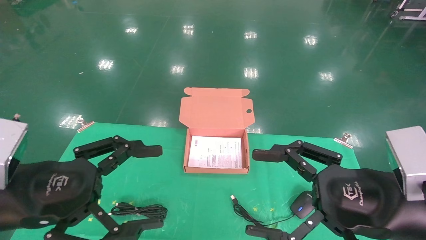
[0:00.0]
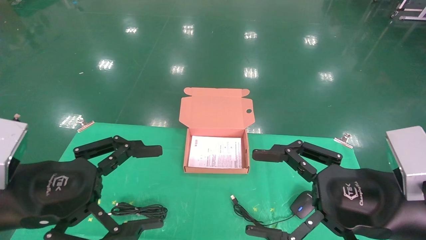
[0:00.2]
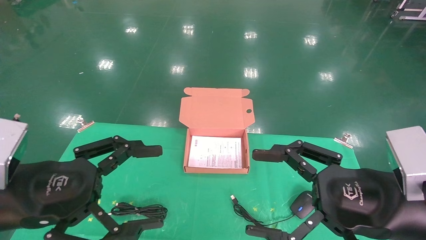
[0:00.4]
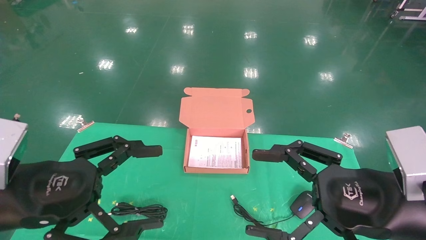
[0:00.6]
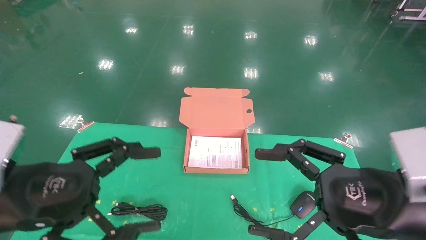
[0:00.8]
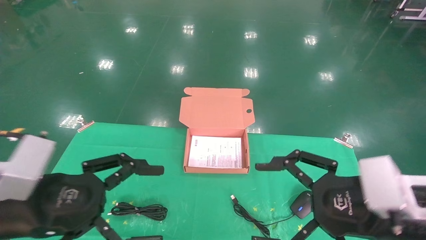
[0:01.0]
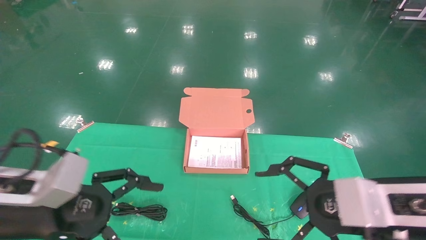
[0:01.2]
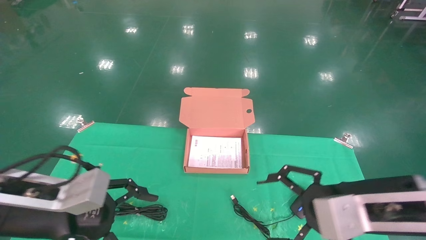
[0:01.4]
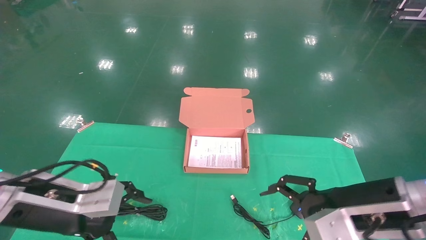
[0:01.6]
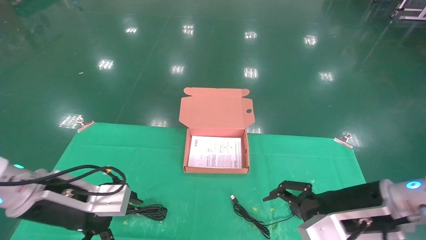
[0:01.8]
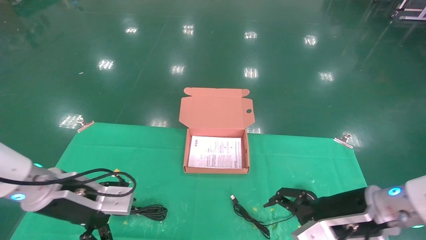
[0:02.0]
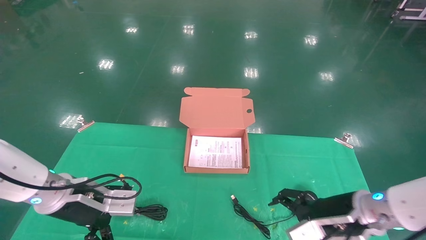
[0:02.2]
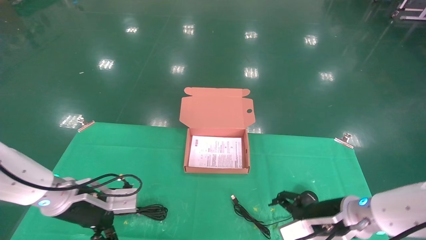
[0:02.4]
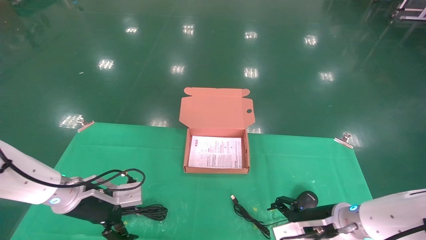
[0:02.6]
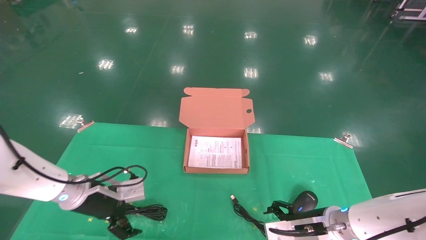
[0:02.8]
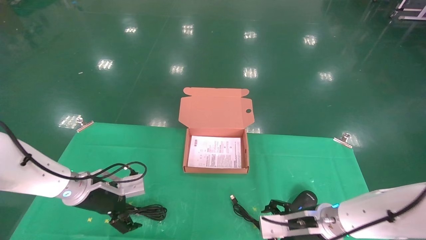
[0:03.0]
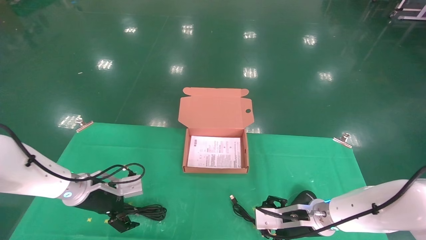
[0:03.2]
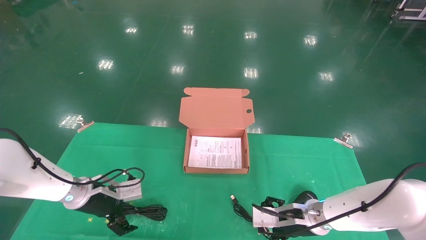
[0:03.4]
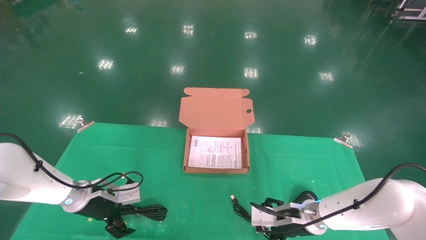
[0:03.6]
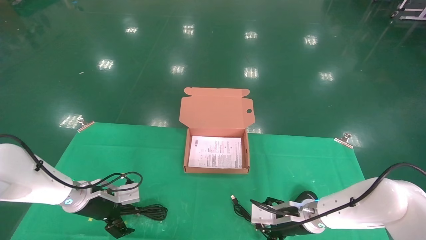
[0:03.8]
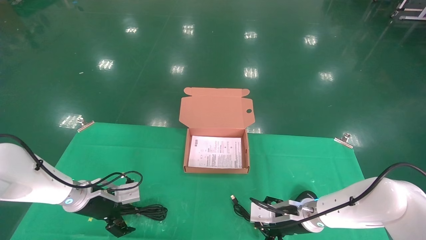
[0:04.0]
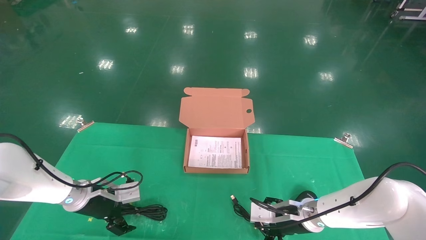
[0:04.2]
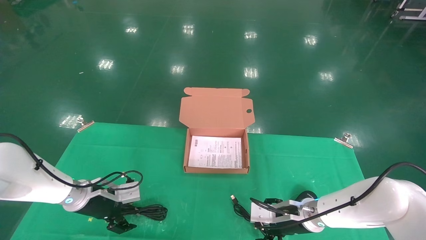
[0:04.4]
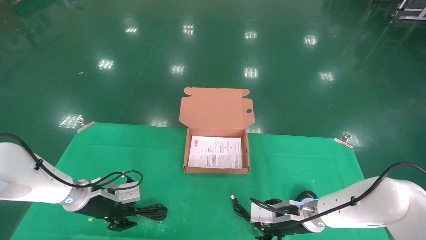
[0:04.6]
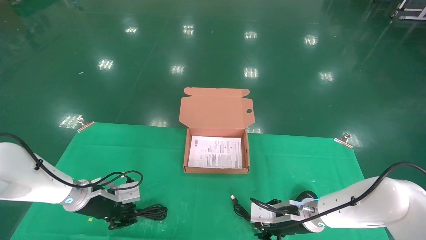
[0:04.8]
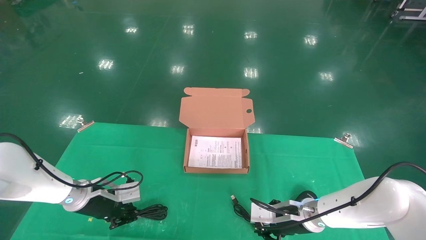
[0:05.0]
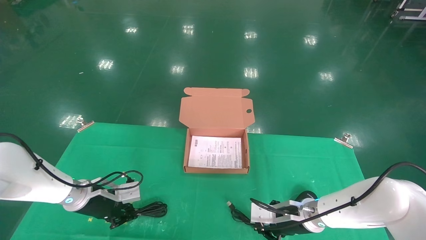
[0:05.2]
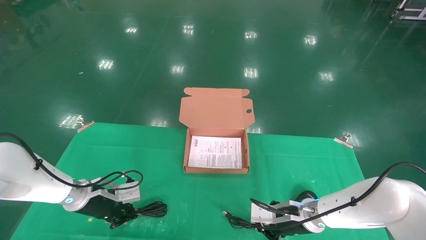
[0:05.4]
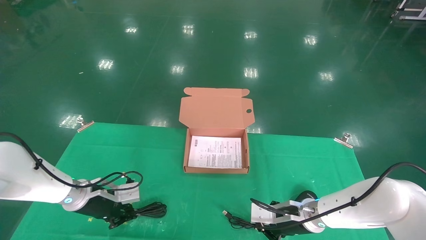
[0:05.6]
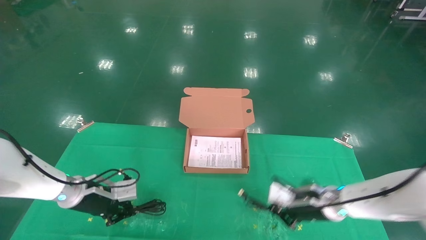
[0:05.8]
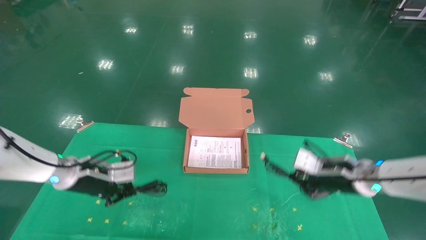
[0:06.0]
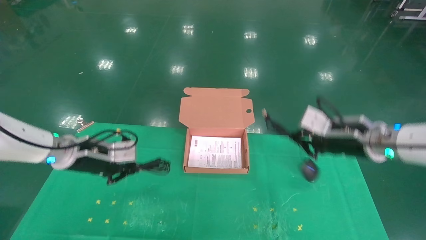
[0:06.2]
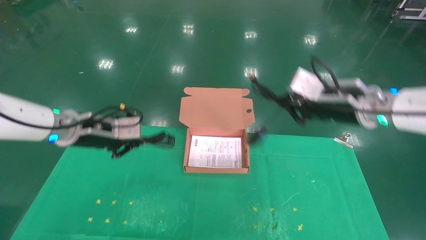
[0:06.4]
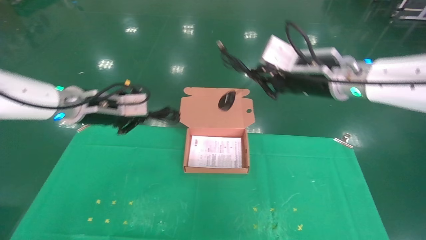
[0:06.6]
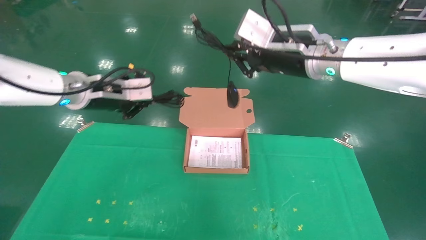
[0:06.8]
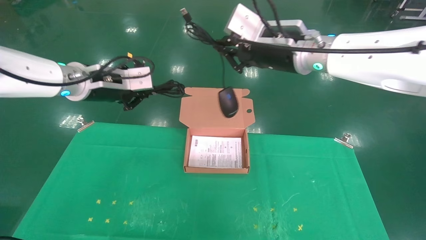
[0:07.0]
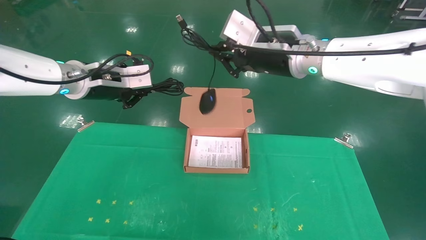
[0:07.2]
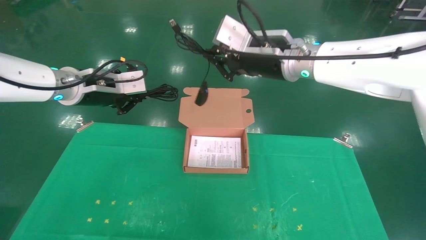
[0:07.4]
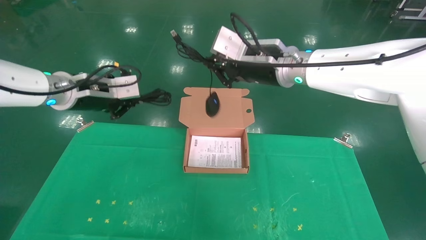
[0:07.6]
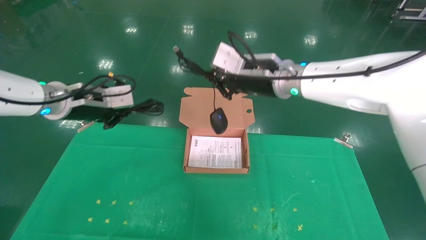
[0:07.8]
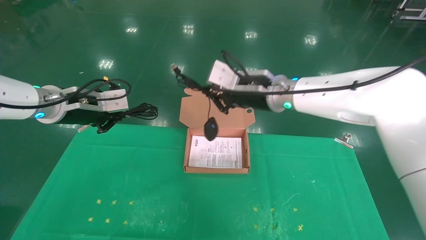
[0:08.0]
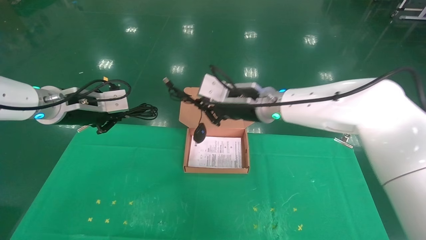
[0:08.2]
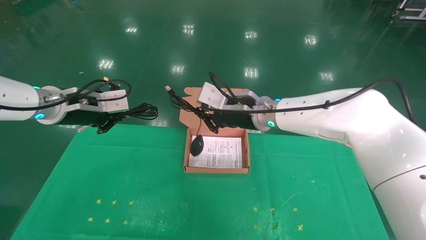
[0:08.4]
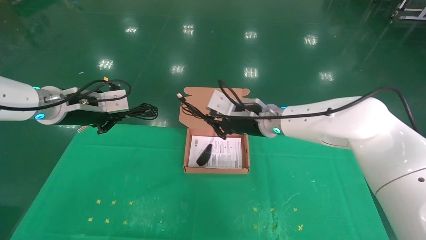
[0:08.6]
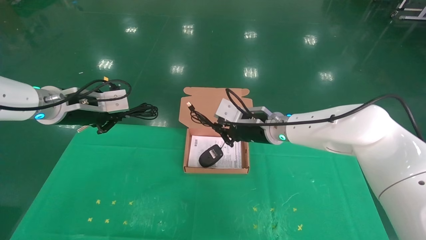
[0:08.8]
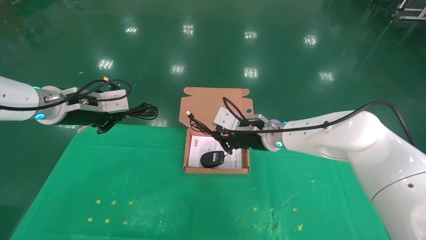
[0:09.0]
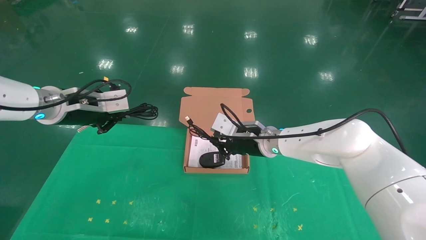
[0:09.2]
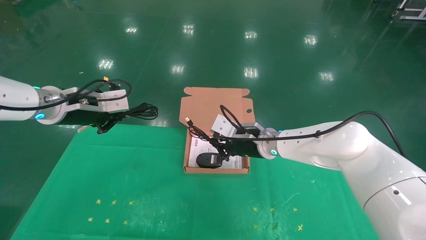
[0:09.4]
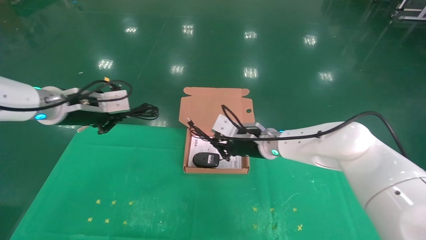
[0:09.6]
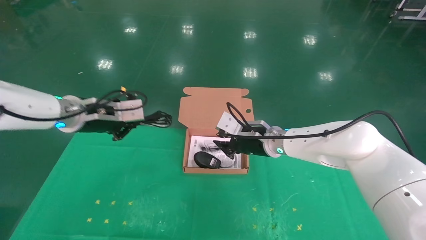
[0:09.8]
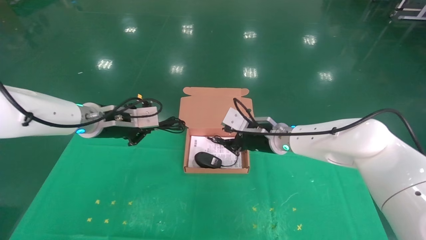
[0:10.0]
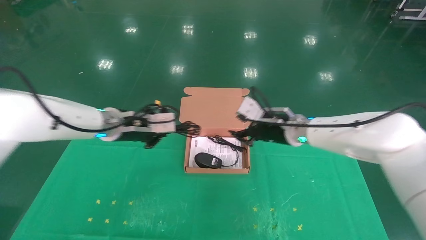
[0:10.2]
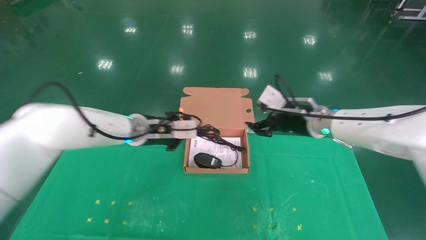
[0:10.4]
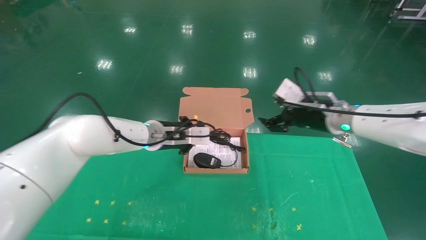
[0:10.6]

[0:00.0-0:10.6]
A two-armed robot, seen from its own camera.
Task of the whole recording: grasp data cable left put into box grasp mouse right put into box.
Step, 0:00.8 to 0:06.4: Grab and pick up both the mouse and power cord from the accessory packaging area at the same time.
0:00.0 to 0:01.6: The two grippers go about 5 cm forward.
0:01.6 to 0:03.0: The right gripper moves downward and forward, roughly 15 cm. Meanwhile the left gripper moves forward and downward, approximately 15 cm.
0:03.0 to 0:04.6: The left gripper closes its fingers. Meanwhile the right gripper shifts by roughly 5 cm.
0:04.6 to 0:06.0: The right gripper shifts some 15 cm upward and to the right, and closes its fingers. The left gripper travels upward by some 10 cm, and closes up.
0:06.0 to 0:07.6: The left gripper travels upward by some 15 cm. The right gripper goes about 25 cm upward and to the left.
0:07.6 to 0:09.0: The right gripper shifts about 15 cm downward.
0:09.0 to 0:10.6: The right gripper travels to the right by approximately 15 cm, and opens its fingers. The left gripper travels to the right, downward and forward by some 20 cm.

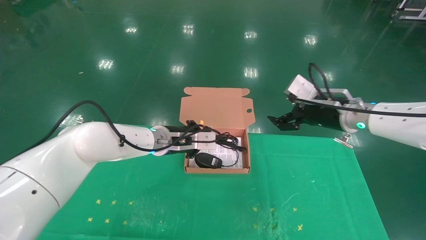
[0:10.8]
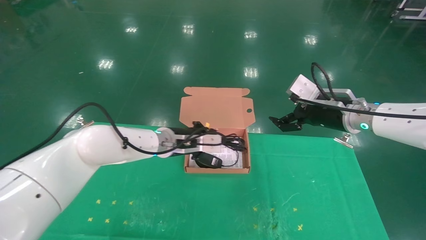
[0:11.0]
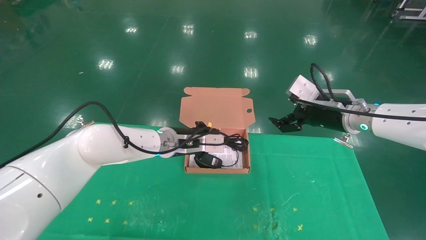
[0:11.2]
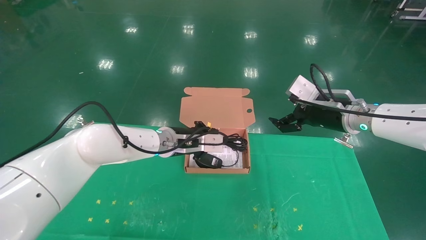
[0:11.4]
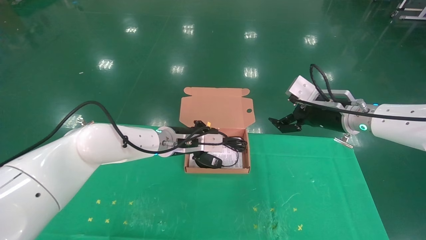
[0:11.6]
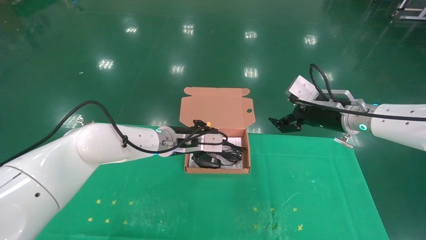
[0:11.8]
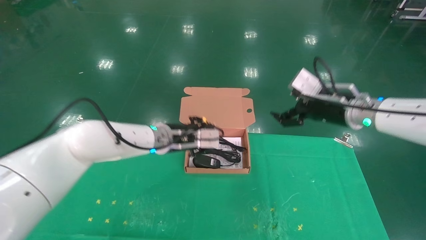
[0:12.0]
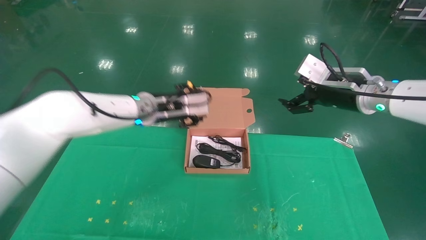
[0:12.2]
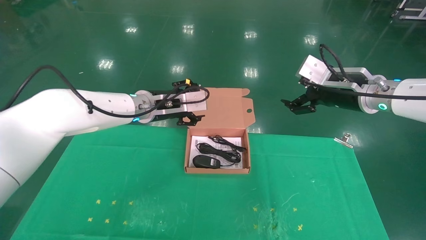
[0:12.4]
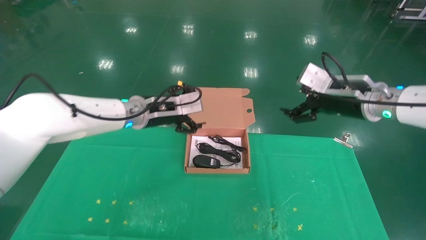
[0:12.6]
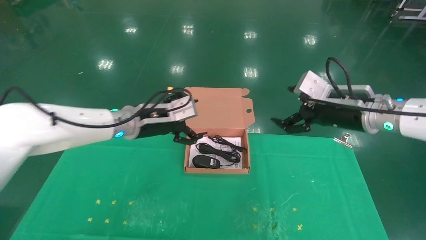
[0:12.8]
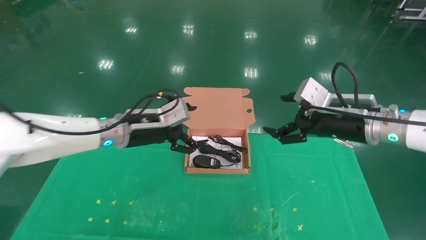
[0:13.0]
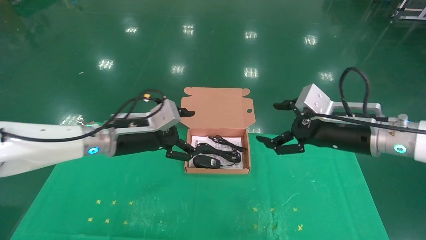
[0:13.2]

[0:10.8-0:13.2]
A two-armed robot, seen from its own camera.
Task of the whole recording: grasp data cable left put into box grasp mouse right put into box.
0:10.8 to 0:12.0: The grippers make only small movements.
0:12.0 to 0:13.2: The right gripper goes about 5 cm backward. Meanwhile the left gripper moves to the left and backward, roughly 10 cm, and opens up.

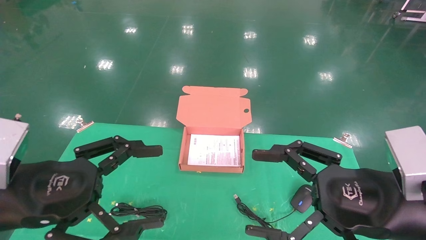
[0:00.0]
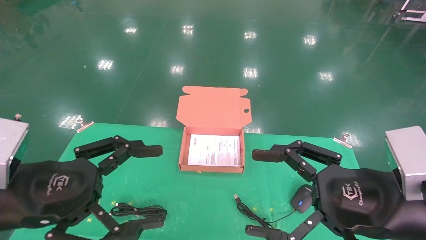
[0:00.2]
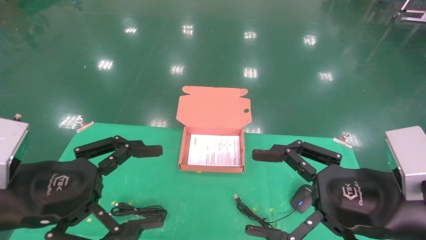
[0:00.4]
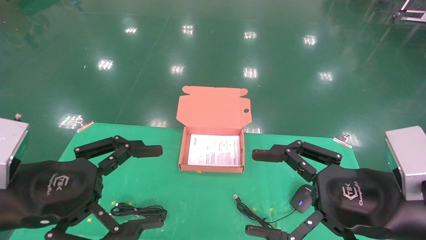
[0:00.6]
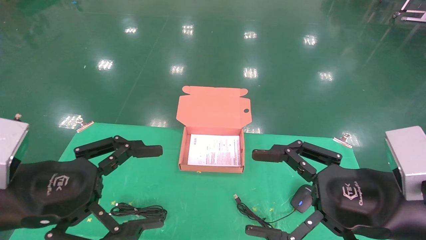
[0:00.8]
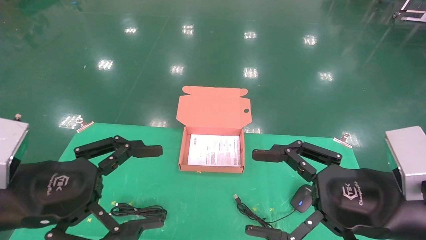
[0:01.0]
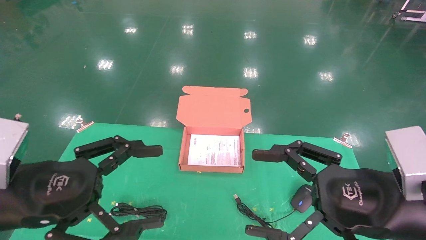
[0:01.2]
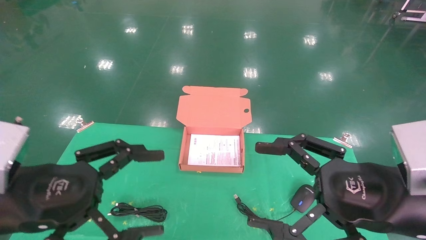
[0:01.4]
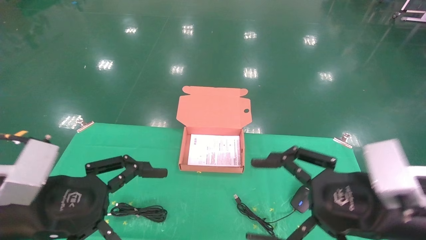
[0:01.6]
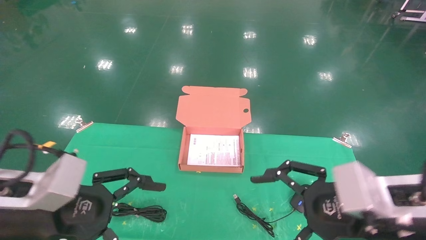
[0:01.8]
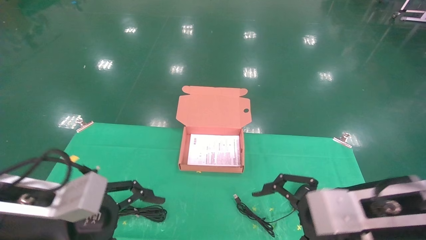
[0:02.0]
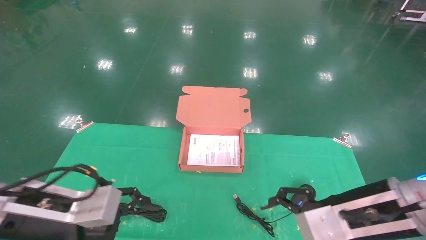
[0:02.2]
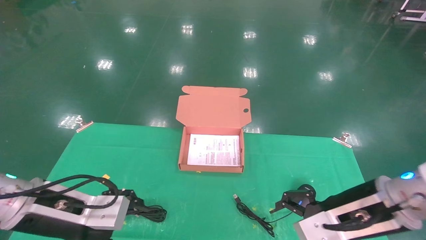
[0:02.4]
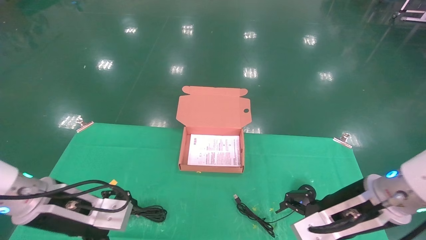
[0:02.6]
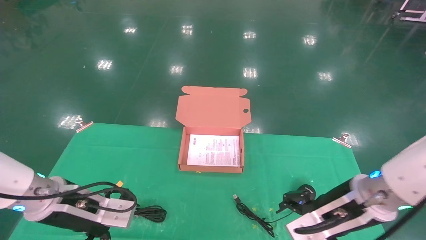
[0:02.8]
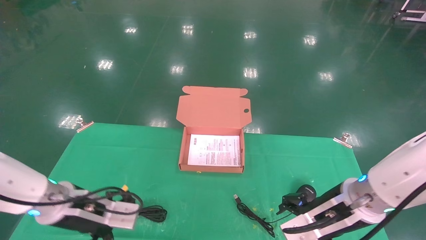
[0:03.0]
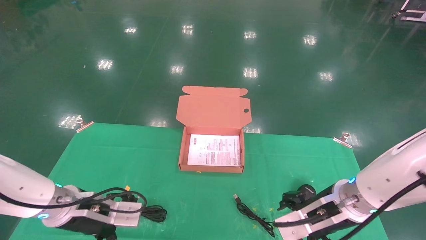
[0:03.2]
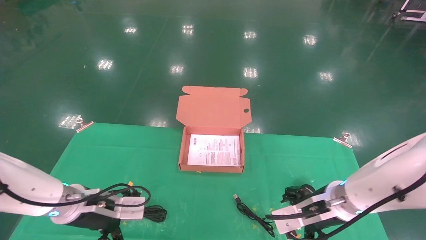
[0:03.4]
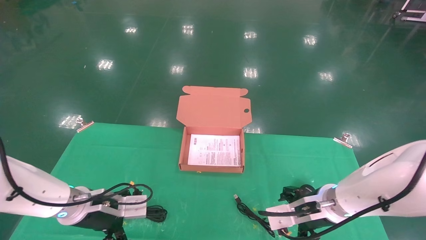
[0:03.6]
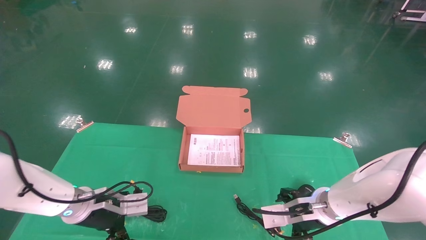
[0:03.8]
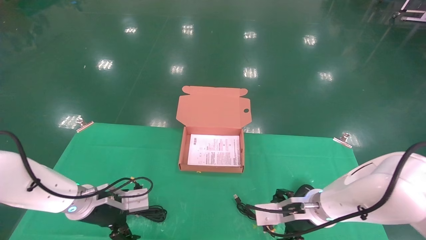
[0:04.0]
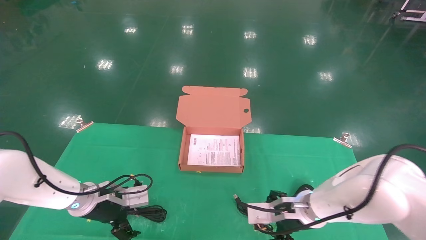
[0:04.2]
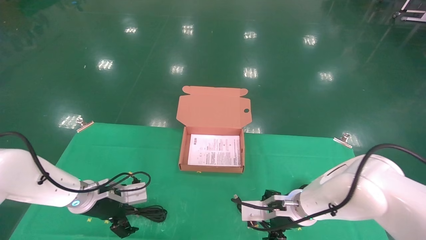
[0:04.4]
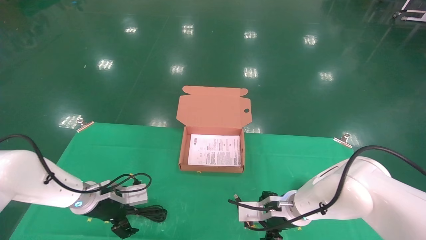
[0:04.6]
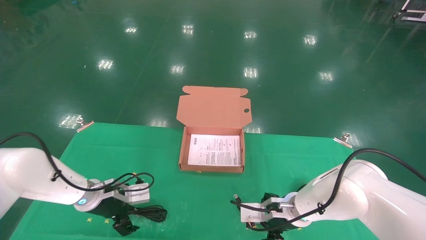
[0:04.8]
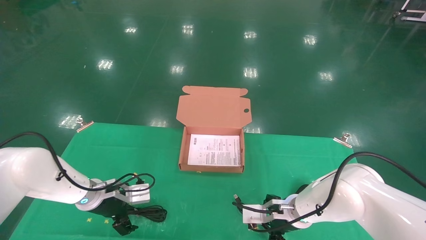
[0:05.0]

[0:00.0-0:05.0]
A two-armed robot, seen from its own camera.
Task of the whole recording: grasp data cable left put into box grasp mouse right put into box.
0:00.0 to 0:01.6: There are only small adjustments of the grippers.
0:01.6 to 0:03.4: Both grippers move forward and downward, about 15 cm.
0:03.4 to 0:05.0: The right gripper goes roughly 10 cm downward, forward and to the left. The left gripper moves forward, approximately 10 cm.
